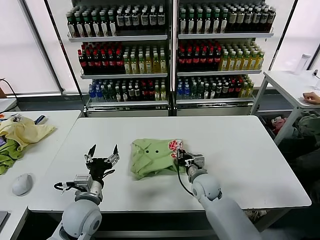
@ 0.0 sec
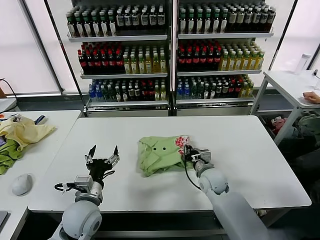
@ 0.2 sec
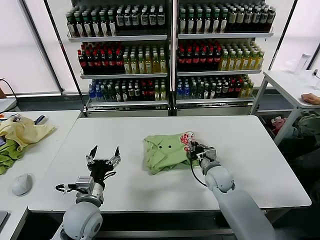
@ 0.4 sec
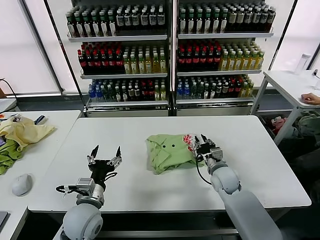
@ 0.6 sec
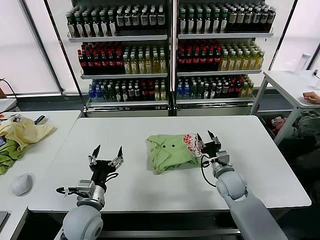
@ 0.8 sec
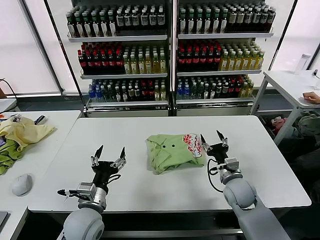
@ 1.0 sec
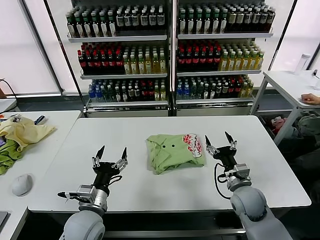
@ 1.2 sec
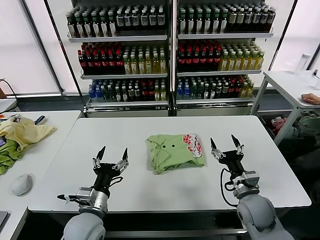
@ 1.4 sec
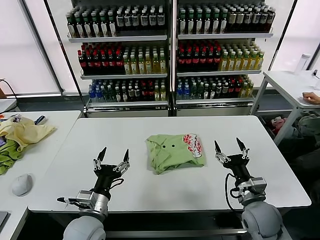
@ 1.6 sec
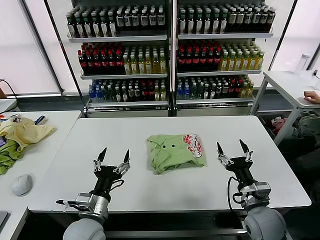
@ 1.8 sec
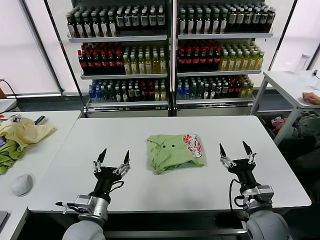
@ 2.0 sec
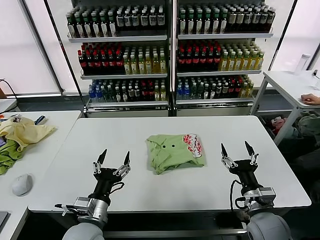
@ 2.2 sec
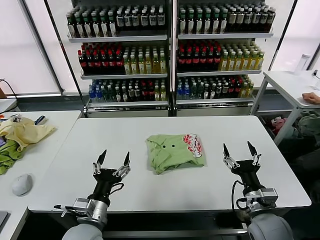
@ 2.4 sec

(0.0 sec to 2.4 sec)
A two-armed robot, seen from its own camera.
Task of the whole recording: fold and organize the clothes.
0.0 sec - 1.2 sec: The right gripper travels to the right and backward by roughly 15 cm, and opens.
1.2 sec - 2.4 sec: The right gripper goes some 10 cm backward.
